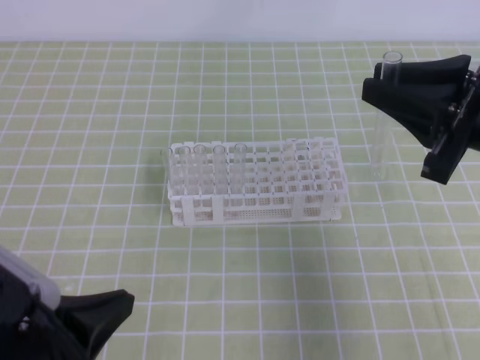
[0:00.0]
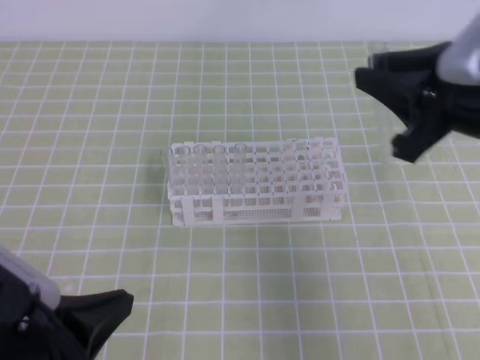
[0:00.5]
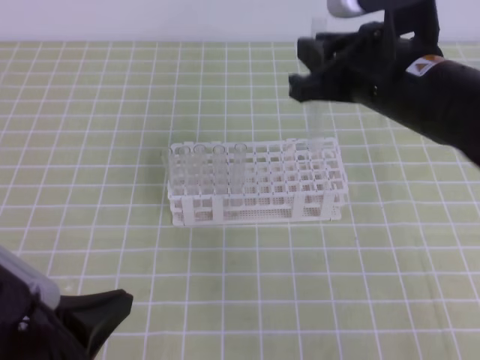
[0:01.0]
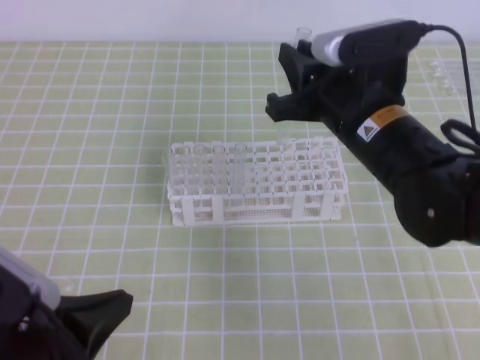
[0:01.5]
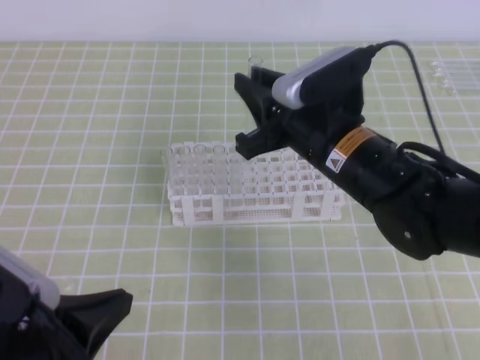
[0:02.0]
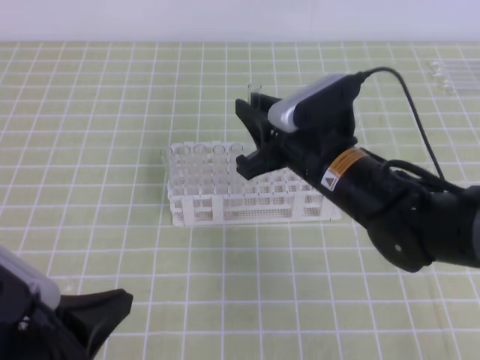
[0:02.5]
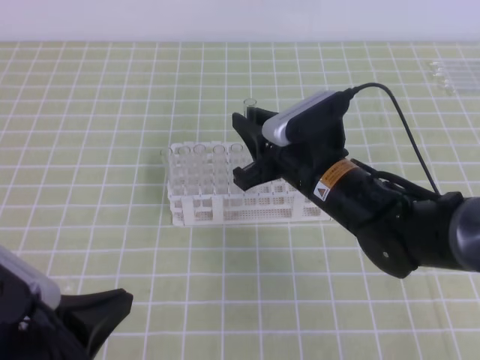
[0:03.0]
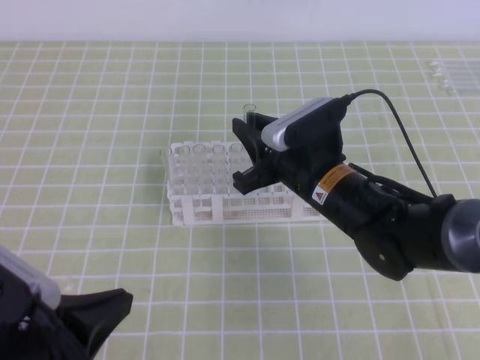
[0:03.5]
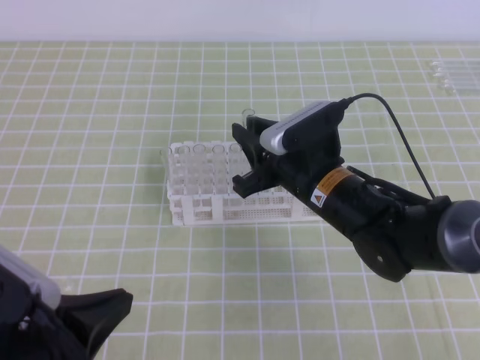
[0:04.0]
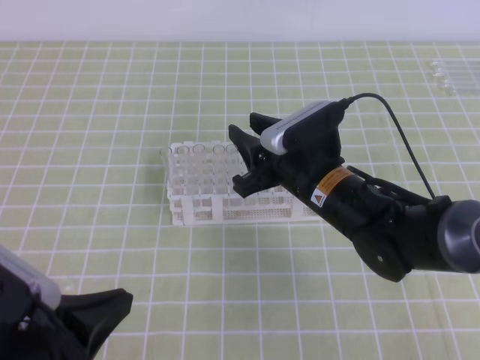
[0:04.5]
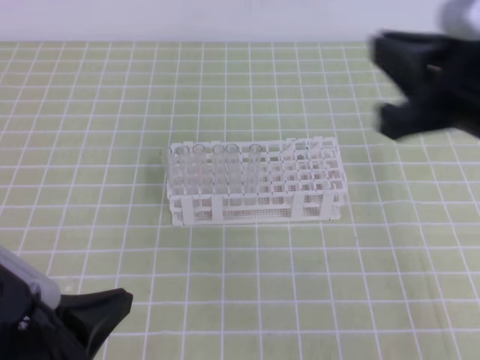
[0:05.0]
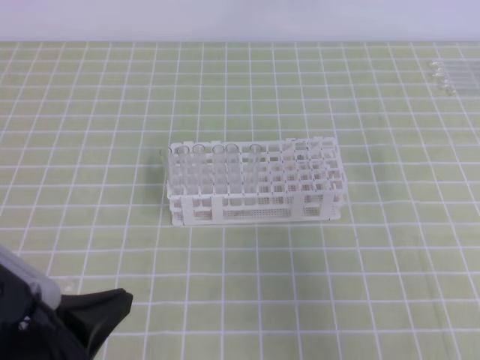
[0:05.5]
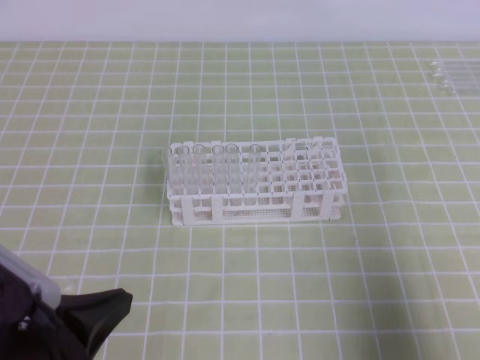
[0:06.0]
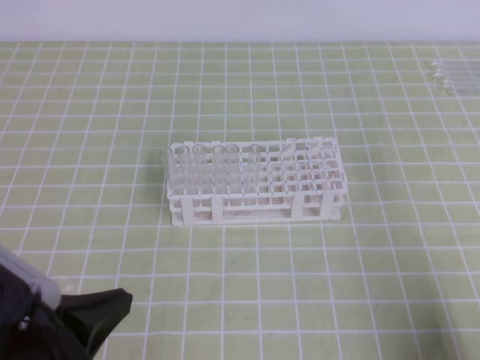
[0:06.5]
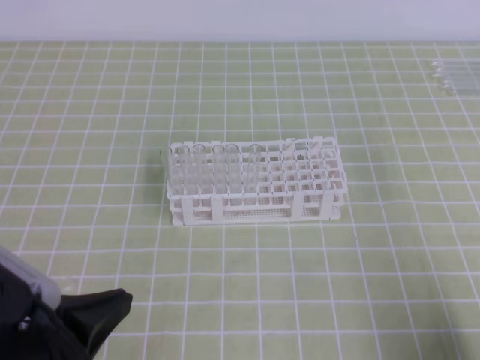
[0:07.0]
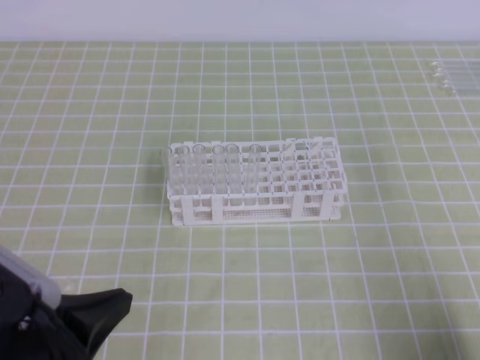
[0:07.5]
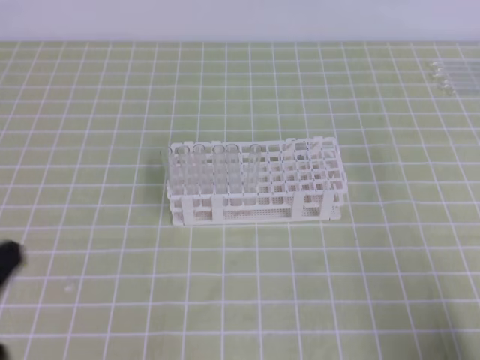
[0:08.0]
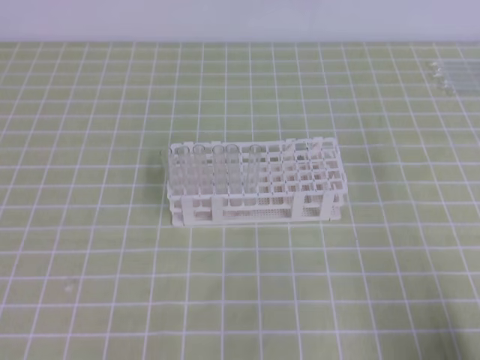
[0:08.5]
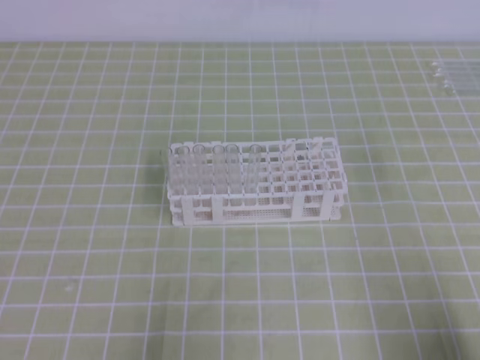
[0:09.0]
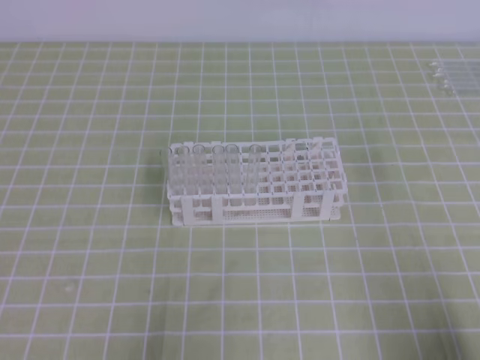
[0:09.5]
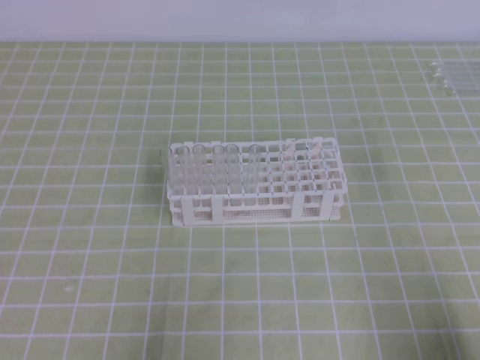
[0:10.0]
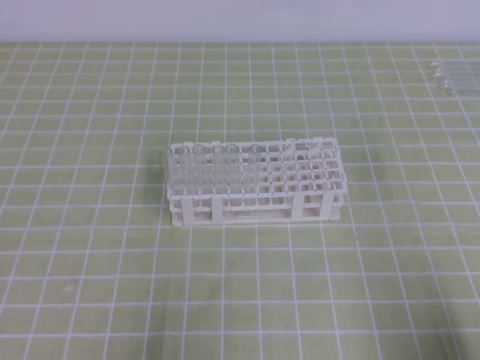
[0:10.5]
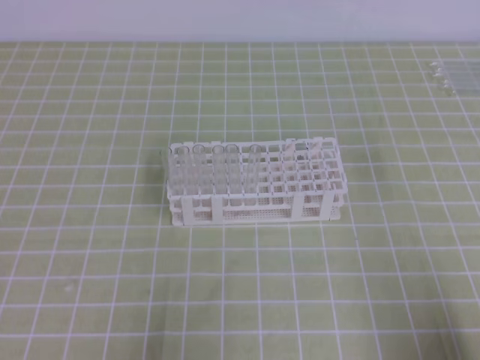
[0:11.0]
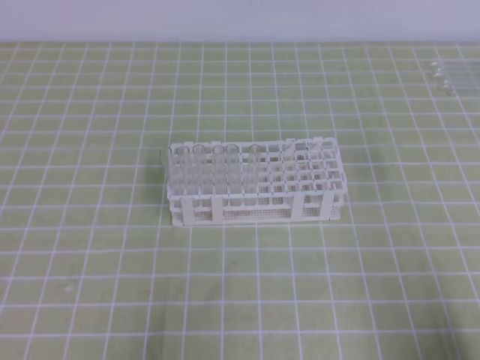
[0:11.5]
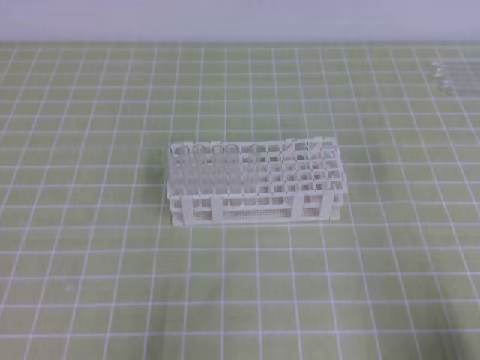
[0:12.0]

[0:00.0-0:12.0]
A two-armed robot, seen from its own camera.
0:00.0 to 0:02.0: The right gripper heads to the left, forward and downward, covering roughly 15 cm.
0:02.0 to 0:04.0: The right gripper is displaced downward by approximately 5 cm.
0:04.0 to 0:06.0: The right gripper heads to the right and backward, covering some 35 cm, and closes.
0:06.0 to 0:08.0: The left gripper moves to the left, roughly 5 cm; the right gripper goes roughly 10 cm downward.
0:08.0 to 0:10.0: The left gripper heads downward, covering about 10 cm.
0:10.0 to 0:12.0: The two grippers keep their place.
